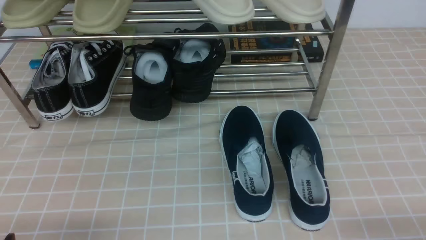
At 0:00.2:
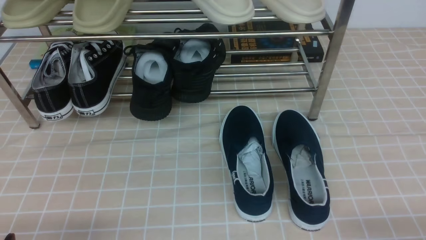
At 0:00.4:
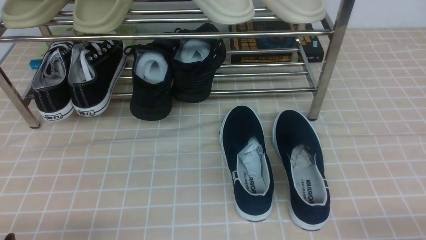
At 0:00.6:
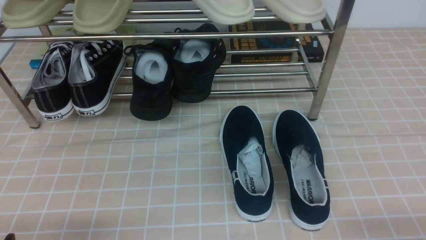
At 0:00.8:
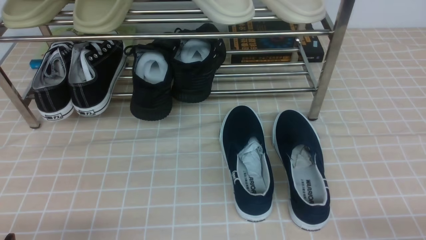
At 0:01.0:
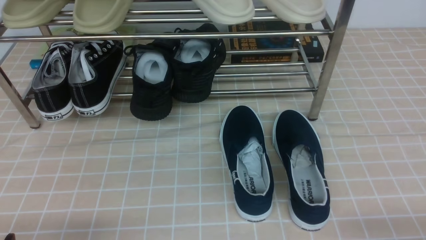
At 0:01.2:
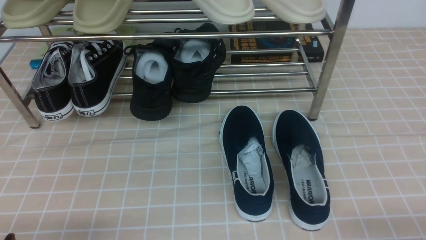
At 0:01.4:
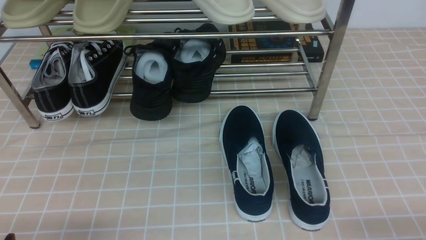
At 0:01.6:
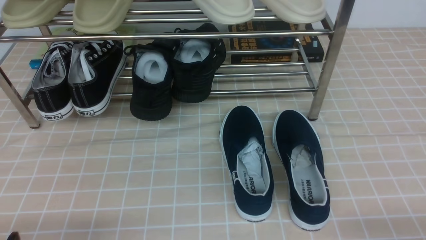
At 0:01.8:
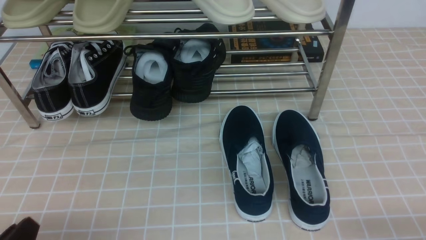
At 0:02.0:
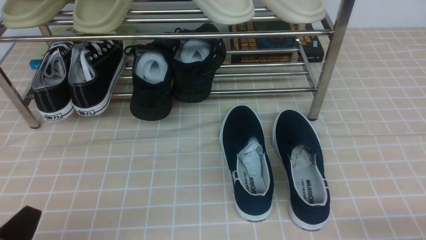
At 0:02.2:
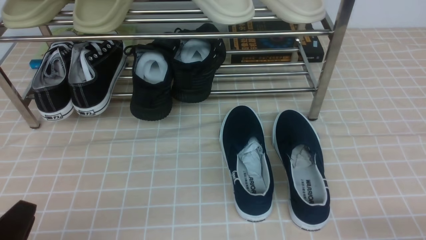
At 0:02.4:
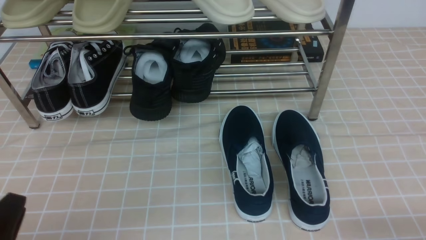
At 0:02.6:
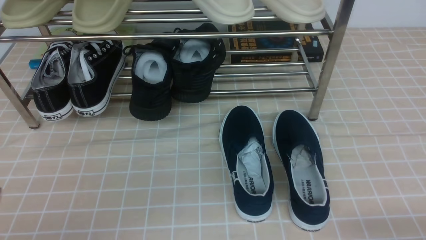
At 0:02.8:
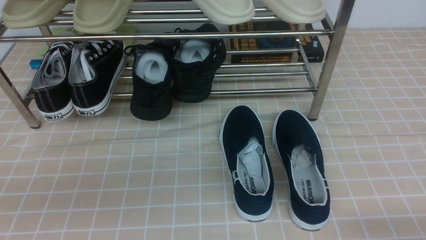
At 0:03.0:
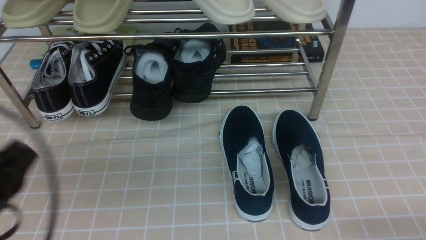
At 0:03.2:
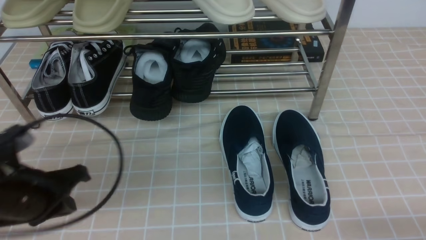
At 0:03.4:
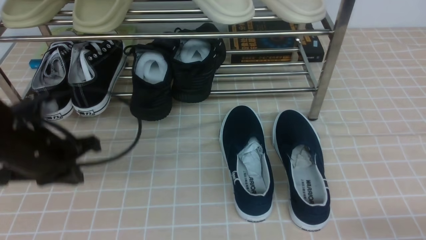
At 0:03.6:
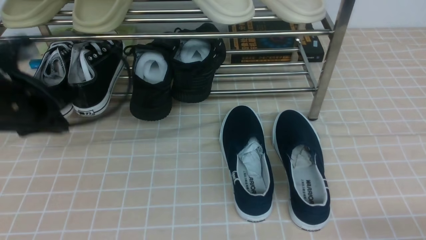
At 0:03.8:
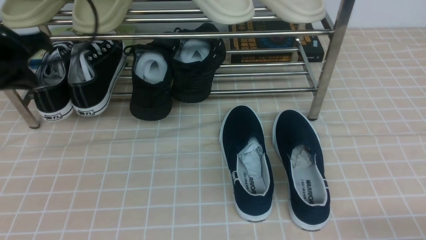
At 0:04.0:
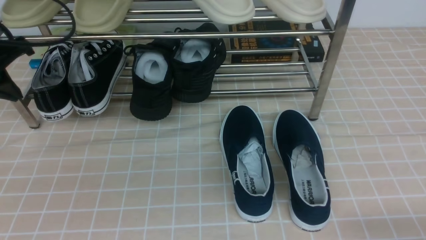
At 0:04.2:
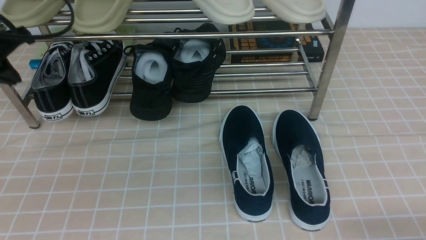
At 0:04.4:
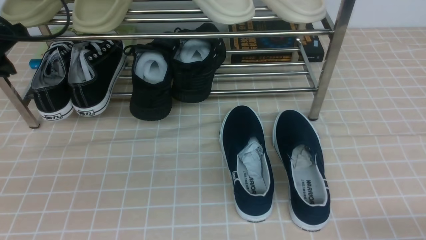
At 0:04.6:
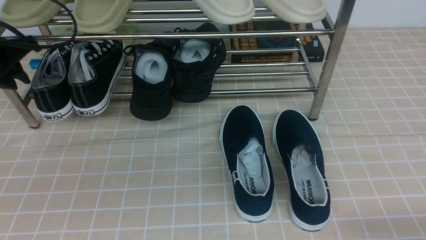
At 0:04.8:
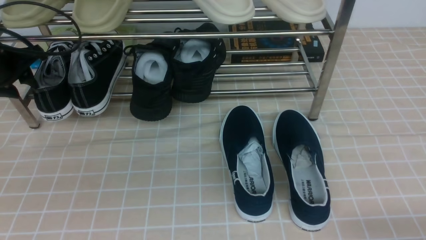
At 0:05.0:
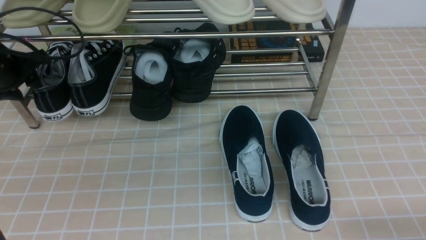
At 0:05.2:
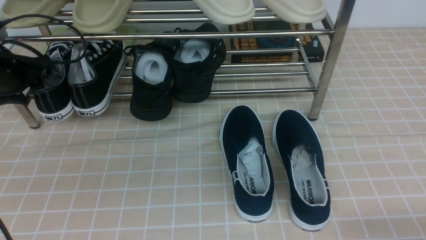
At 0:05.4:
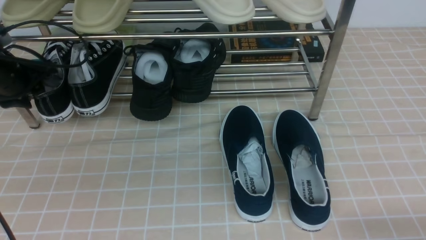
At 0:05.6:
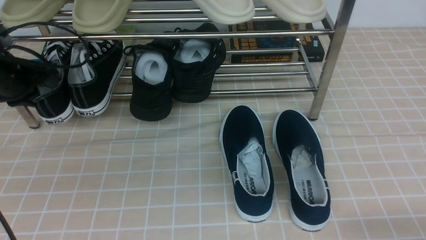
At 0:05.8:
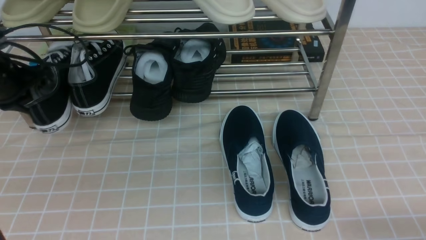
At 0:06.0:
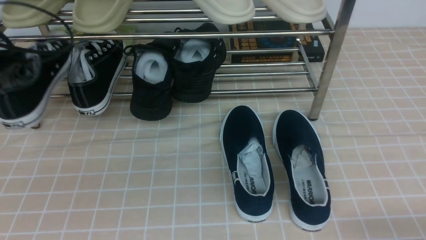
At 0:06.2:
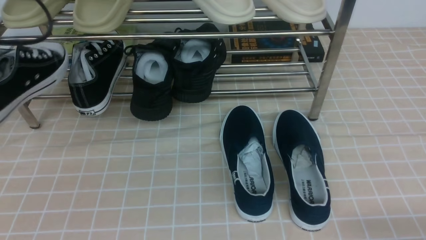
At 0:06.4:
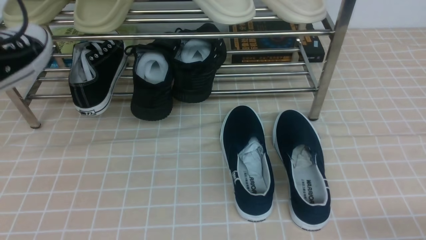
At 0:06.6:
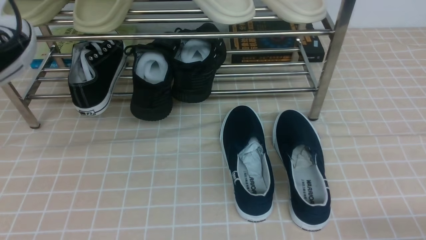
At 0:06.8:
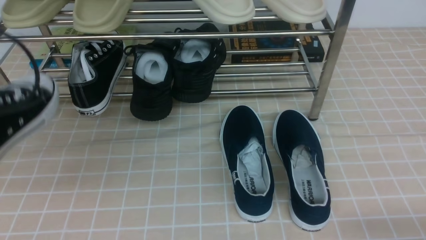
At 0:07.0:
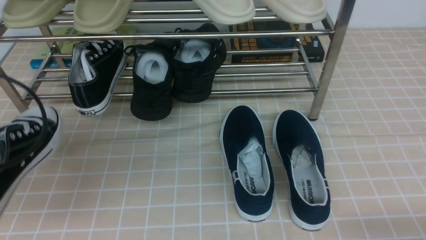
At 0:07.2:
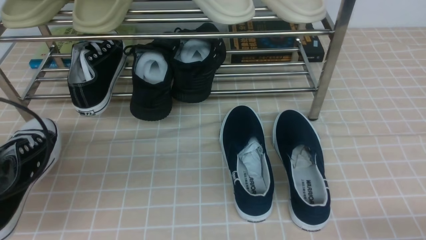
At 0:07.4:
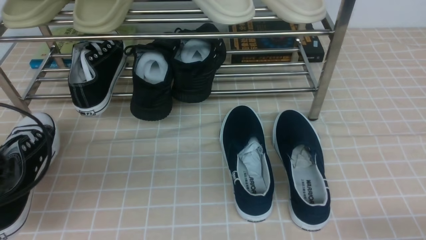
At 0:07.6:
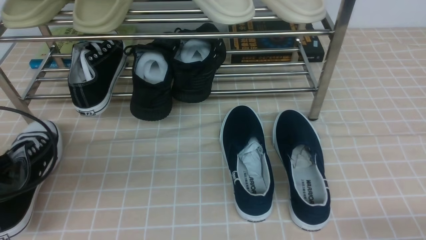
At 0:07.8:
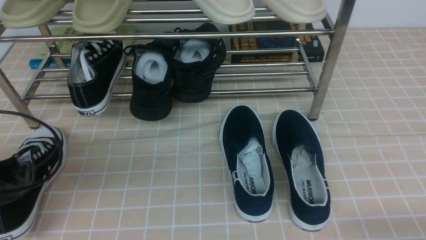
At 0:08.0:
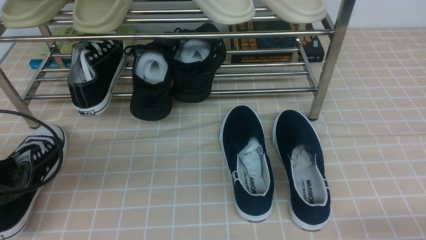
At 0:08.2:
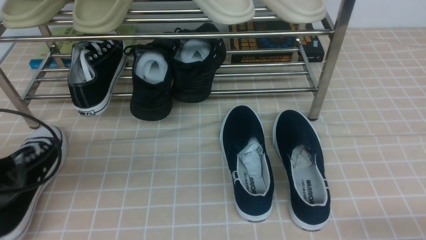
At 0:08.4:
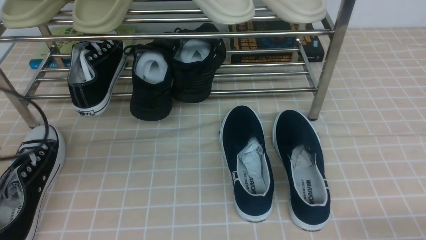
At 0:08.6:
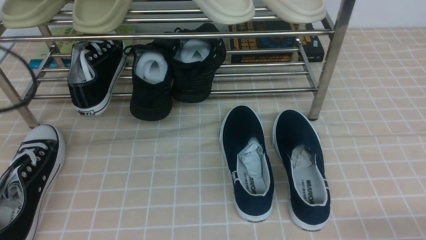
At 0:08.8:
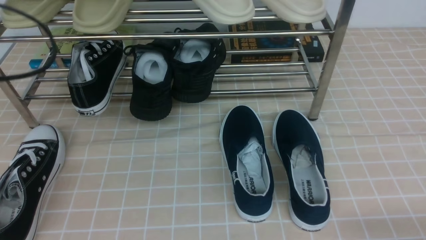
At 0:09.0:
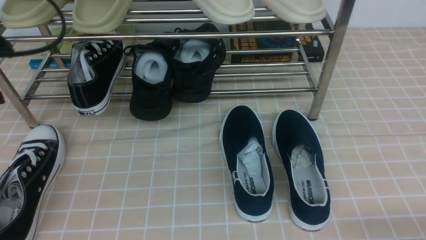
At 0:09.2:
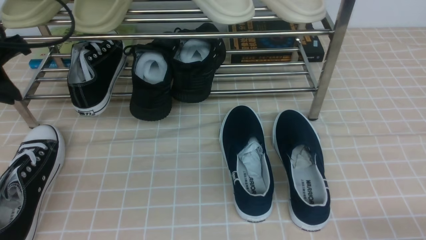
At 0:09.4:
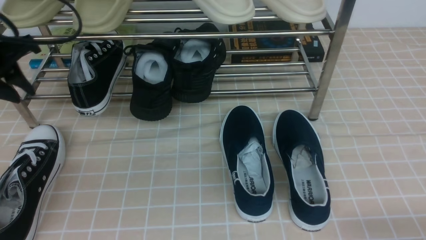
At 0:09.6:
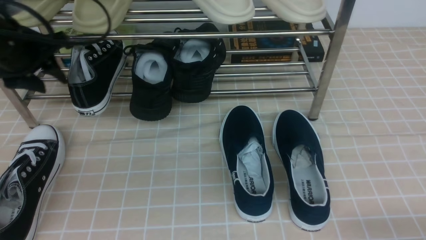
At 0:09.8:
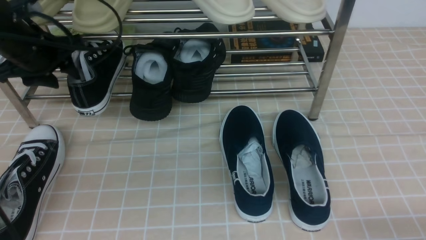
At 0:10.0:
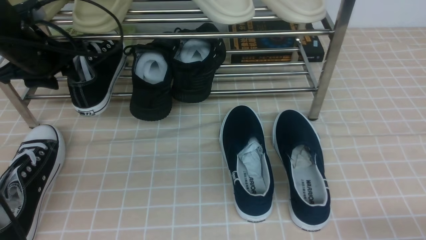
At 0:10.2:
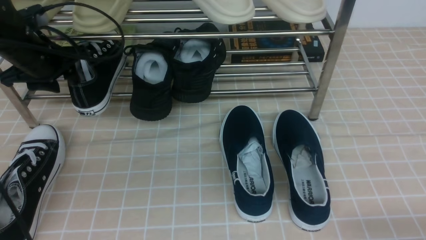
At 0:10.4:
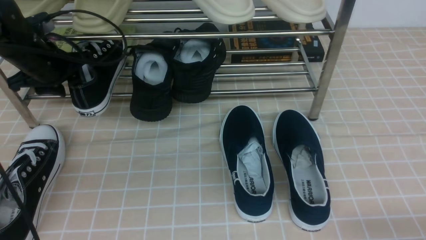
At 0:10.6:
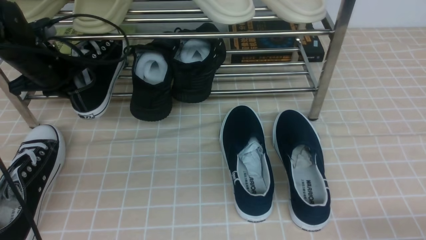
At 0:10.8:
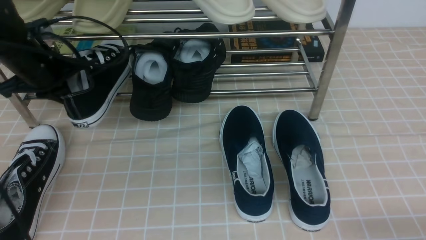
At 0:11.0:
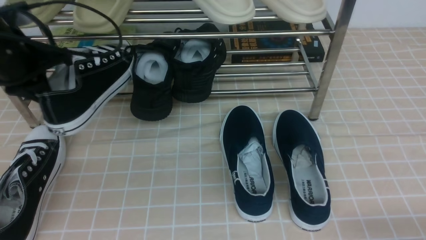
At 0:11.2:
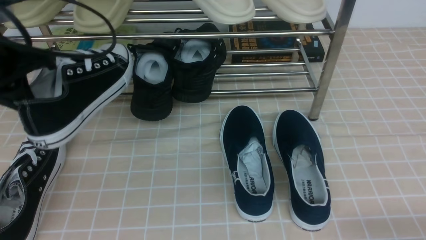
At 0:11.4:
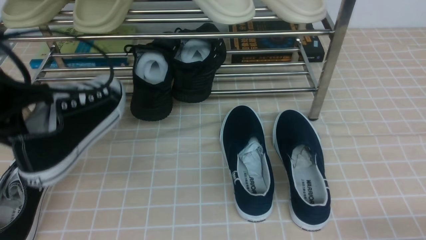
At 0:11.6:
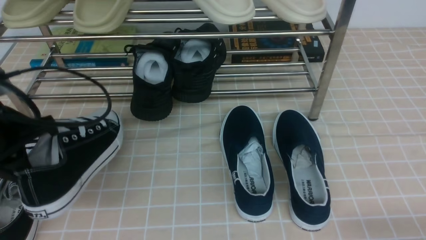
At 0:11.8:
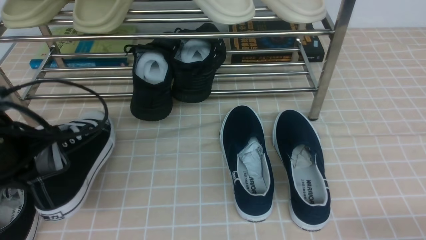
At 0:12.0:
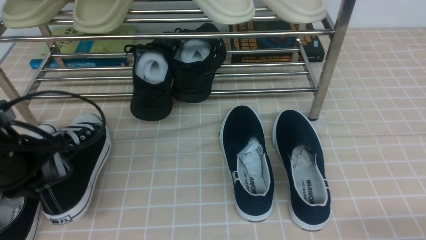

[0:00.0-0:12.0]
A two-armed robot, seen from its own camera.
Step, 0:00.0 to 0:05.4: use the left arm to clamp a shoe on the left side of the shoe rack.
Step, 0:05.6 to 0:08.2: Use your left arm to remove the clamped shoe from the shoe rack and put it down.
Step, 0:08.4 to 0:10.4: use the left arm to clamp a shoe on the left side of the shoe rack.
0:01.6 to 0:03.0: The left gripper heads upward and forward, covering roughly 15 cm, and closes its fingers.
0:03.0 to 0:04.4: The left gripper shifts about 20 cm forward.
0:04.4 to 0:06.0: The left gripper travels downward and back again, some 10 cm each way, and opens, then closes again.
0:06.0 to 0:07.6: The left gripper is displaced backward and downward by approximately 15 cm.
0:07.6 to 0:09.0: The left gripper is displaced upward and forward by some 15 cm, and opens, then closes once more.
0:09.0 to 0:10.4: The left gripper heads forward and downward, covering some 15 cm, and opens its fingers.
0:10.4 to 0:12.0: The left gripper moves backward, roughly 15 cm, and closes up.

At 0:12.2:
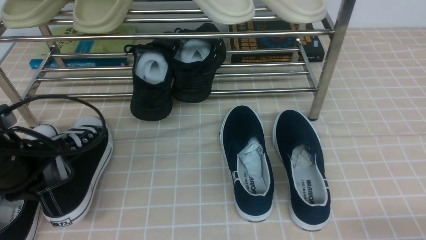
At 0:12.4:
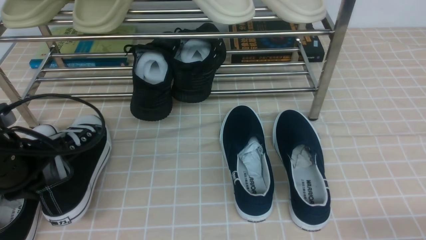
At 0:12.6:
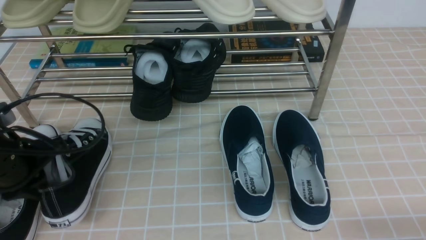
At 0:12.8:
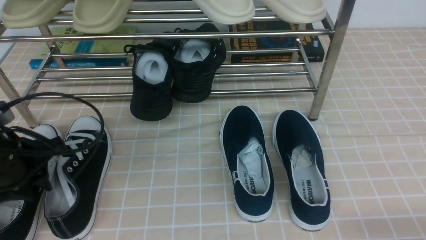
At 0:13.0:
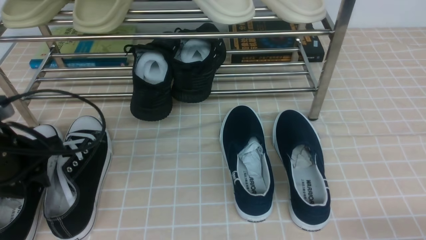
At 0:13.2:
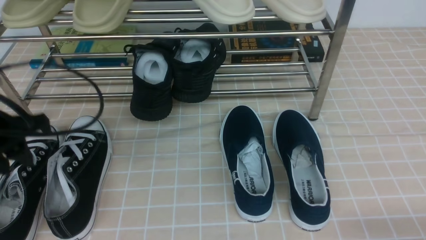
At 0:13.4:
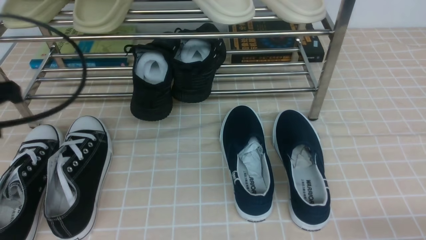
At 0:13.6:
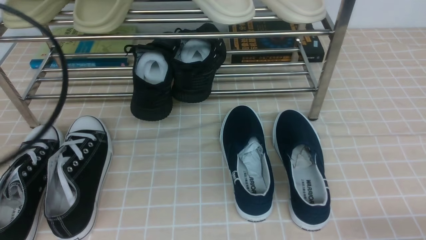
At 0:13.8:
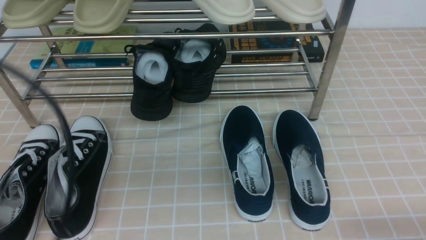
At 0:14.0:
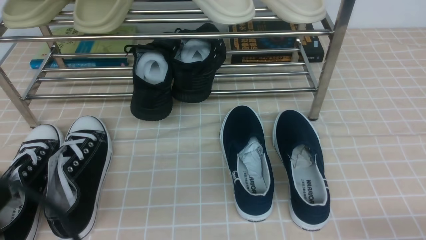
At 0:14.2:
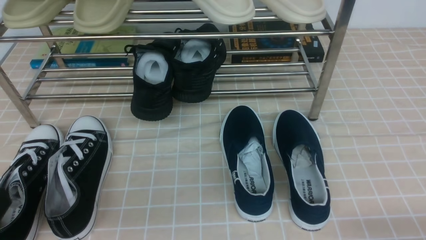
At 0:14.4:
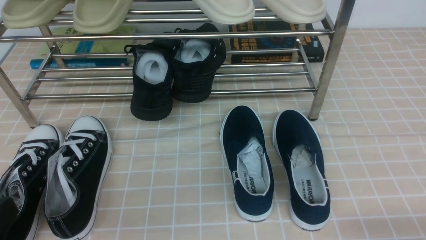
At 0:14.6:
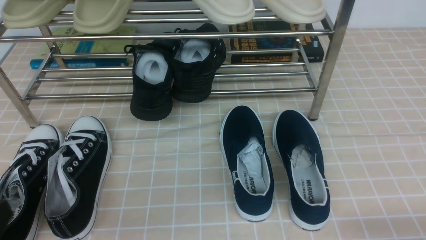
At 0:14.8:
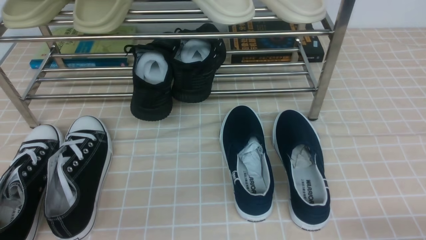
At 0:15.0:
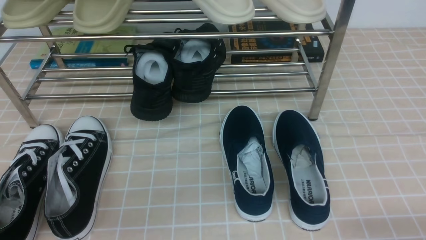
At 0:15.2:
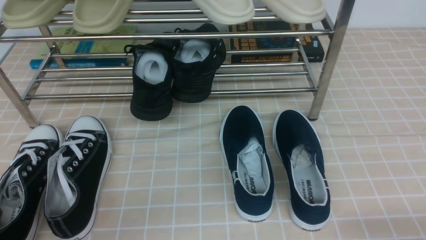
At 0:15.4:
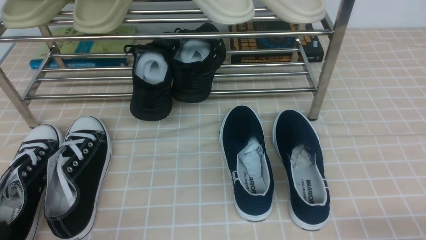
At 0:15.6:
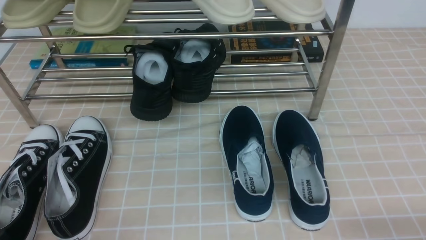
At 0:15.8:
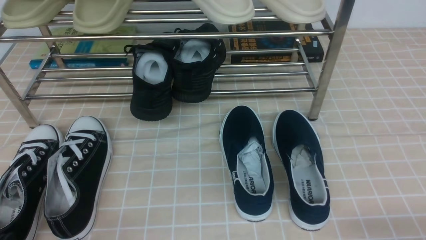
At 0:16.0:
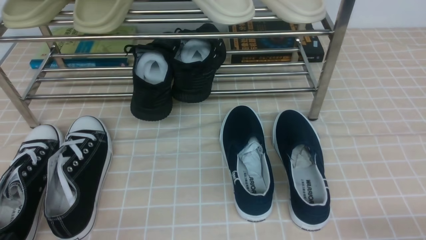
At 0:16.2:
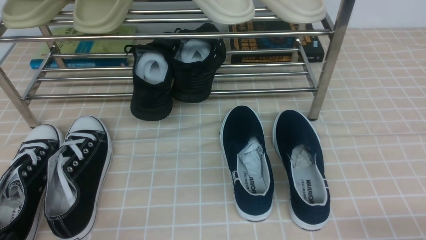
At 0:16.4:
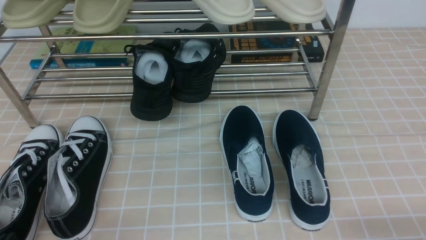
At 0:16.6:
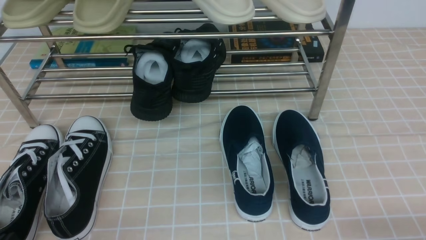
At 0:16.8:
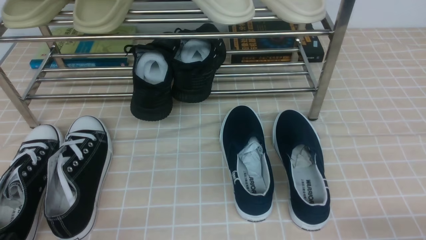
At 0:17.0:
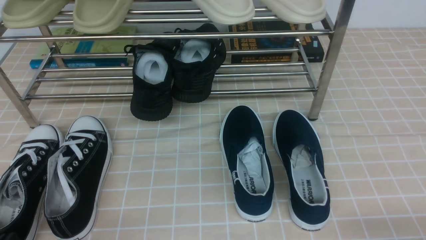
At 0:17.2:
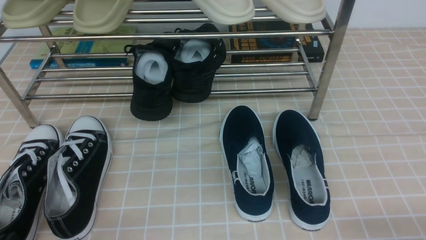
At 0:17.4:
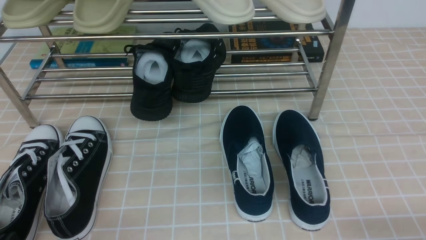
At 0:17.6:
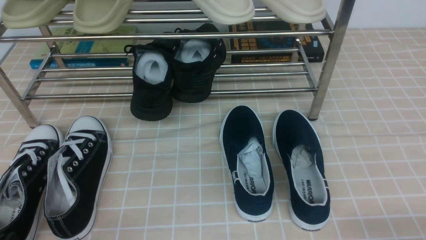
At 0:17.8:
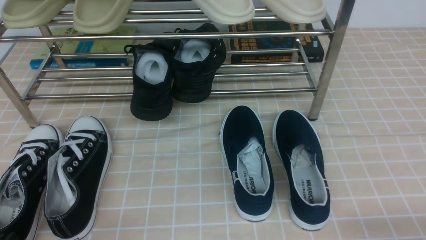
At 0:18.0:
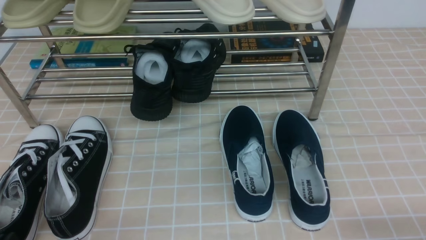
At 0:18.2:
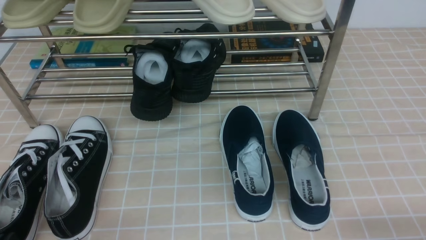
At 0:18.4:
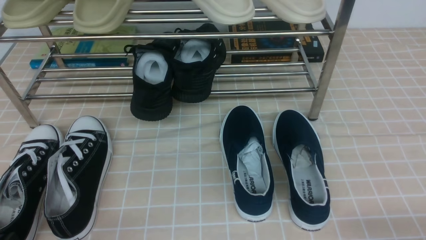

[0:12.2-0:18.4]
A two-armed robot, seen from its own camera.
0:12.2 to 0:13.8: The left gripper goes some 20 cm backward and upward, and opens and closes again.
0:13.8 to 0:15.4: The left gripper travels downward by about 15 cm.
0:16.8 to 0:18.4: Neither gripper changes place.
